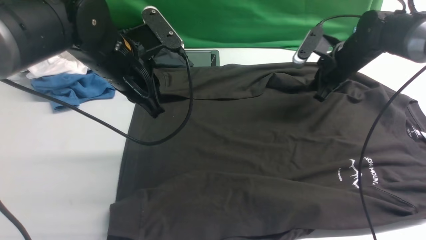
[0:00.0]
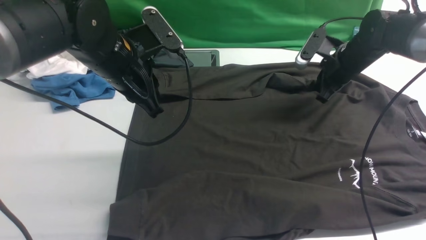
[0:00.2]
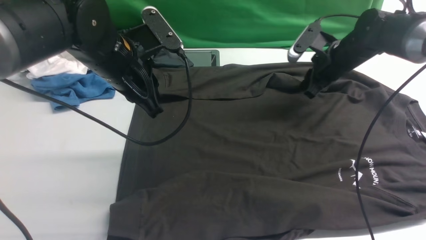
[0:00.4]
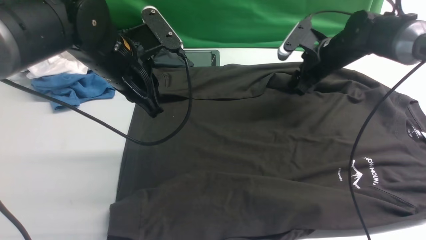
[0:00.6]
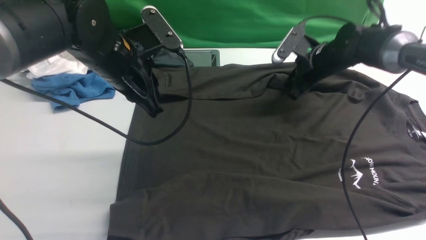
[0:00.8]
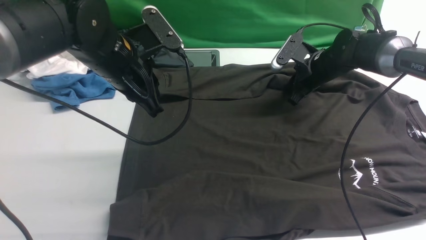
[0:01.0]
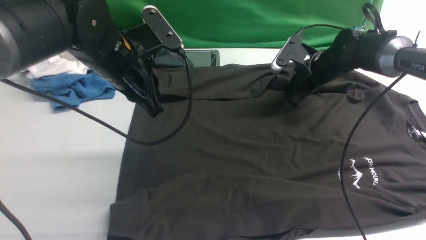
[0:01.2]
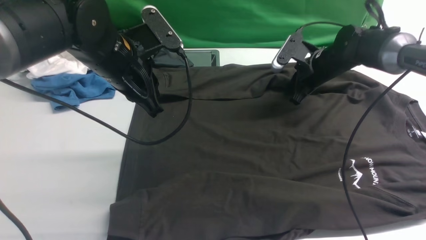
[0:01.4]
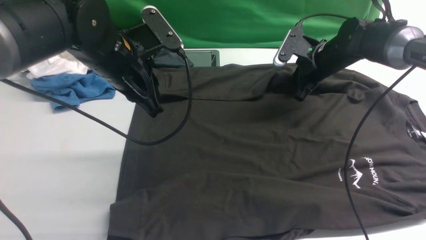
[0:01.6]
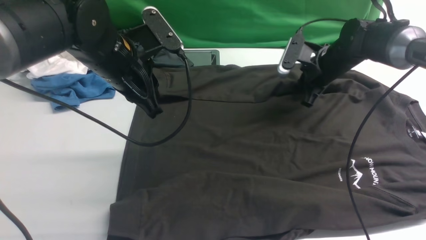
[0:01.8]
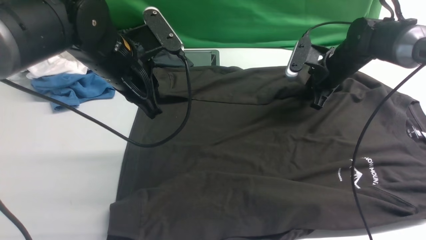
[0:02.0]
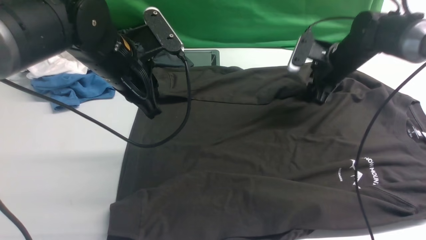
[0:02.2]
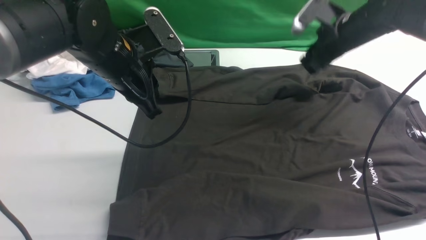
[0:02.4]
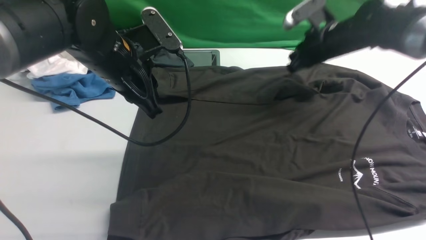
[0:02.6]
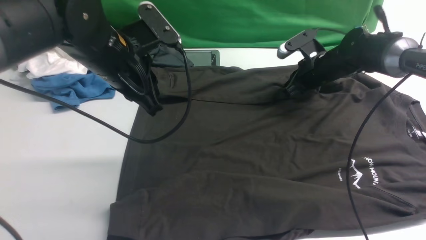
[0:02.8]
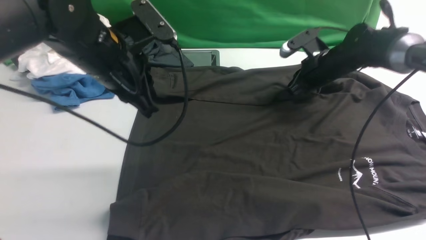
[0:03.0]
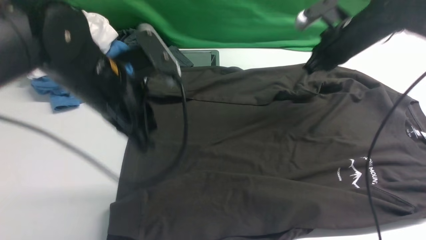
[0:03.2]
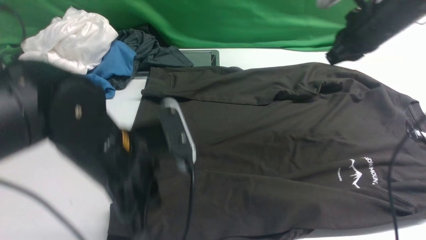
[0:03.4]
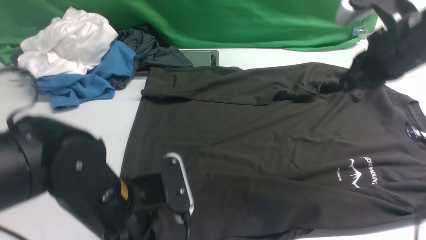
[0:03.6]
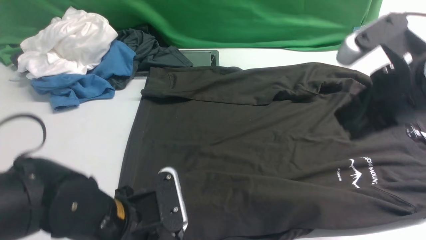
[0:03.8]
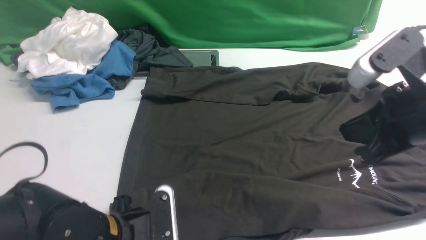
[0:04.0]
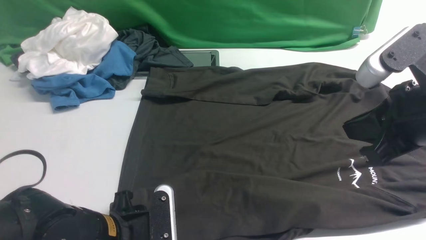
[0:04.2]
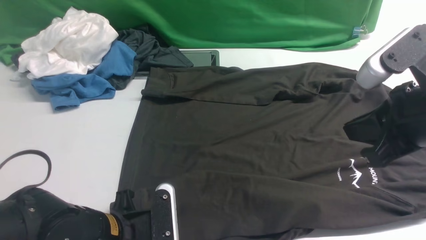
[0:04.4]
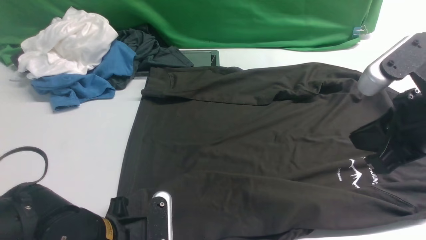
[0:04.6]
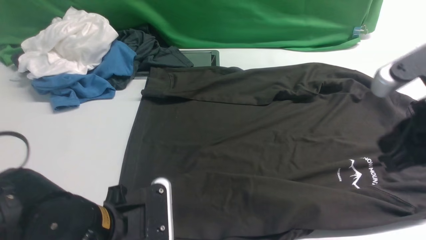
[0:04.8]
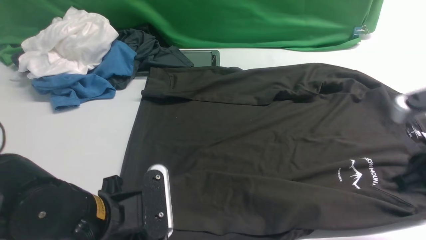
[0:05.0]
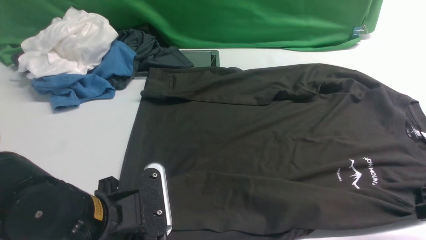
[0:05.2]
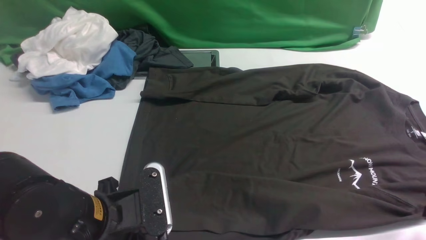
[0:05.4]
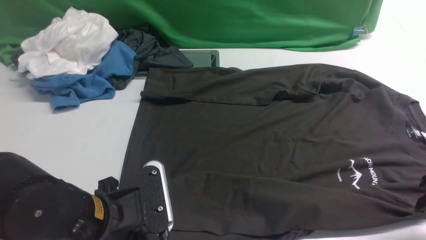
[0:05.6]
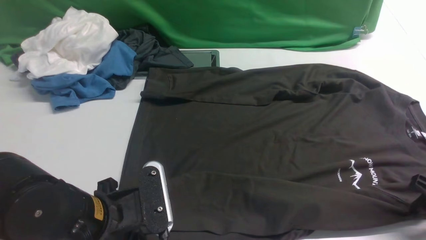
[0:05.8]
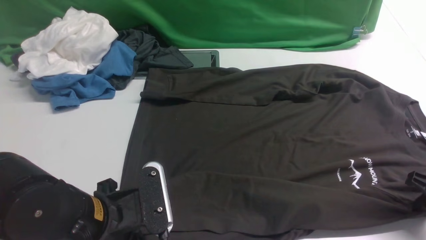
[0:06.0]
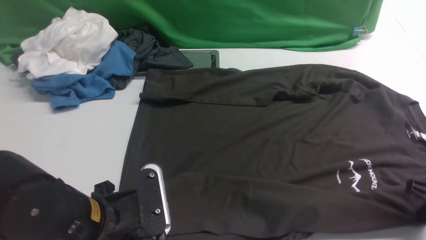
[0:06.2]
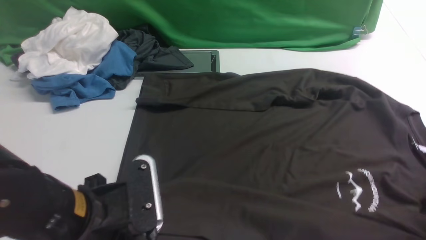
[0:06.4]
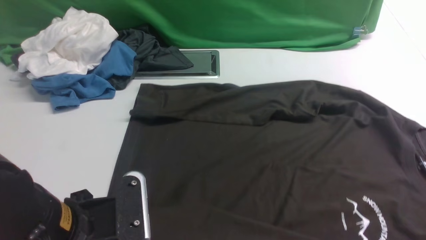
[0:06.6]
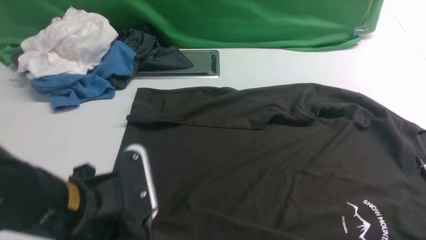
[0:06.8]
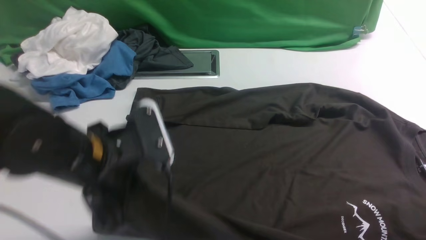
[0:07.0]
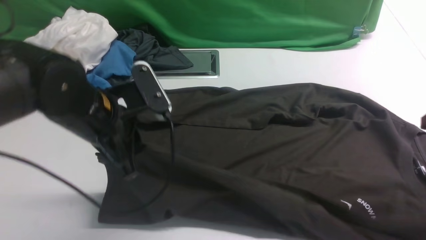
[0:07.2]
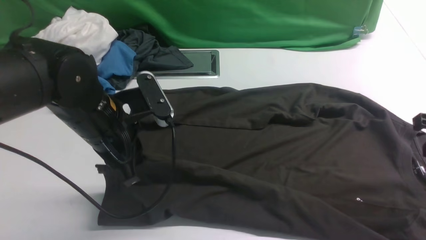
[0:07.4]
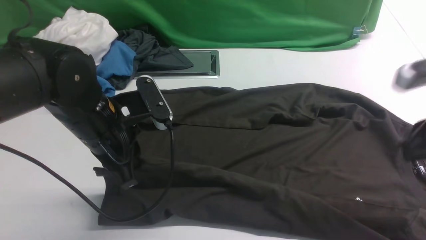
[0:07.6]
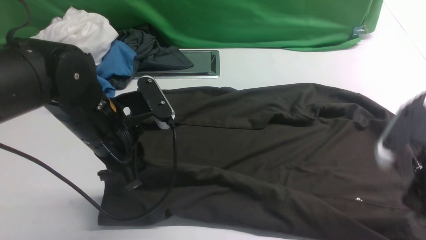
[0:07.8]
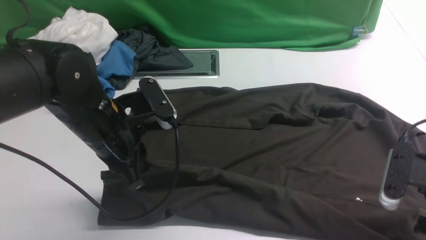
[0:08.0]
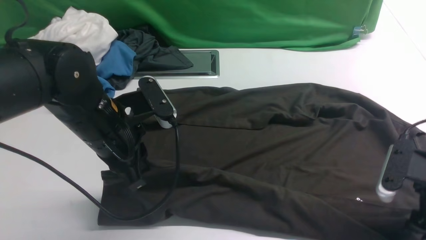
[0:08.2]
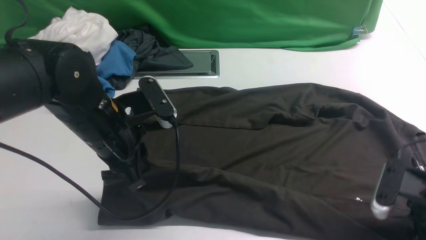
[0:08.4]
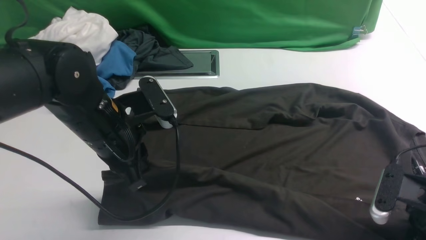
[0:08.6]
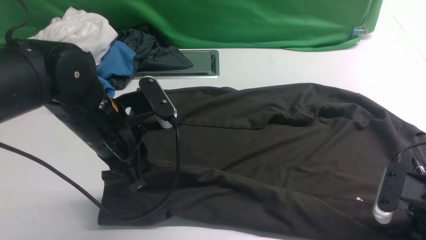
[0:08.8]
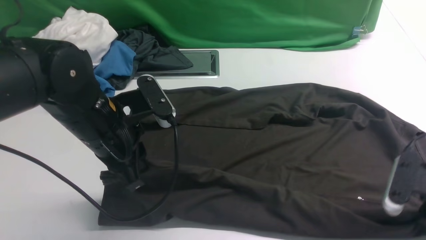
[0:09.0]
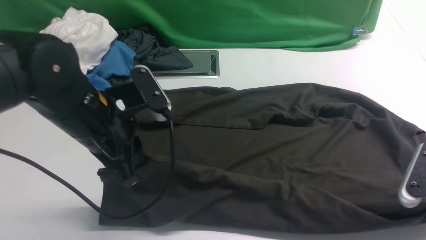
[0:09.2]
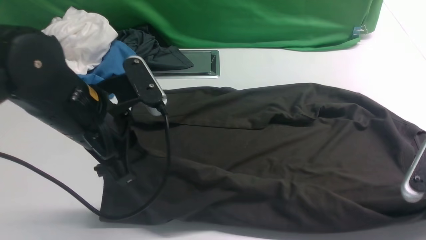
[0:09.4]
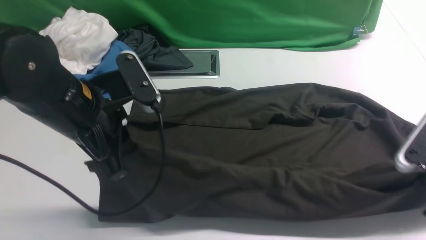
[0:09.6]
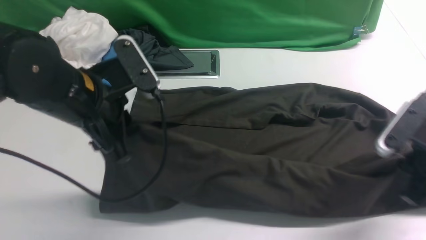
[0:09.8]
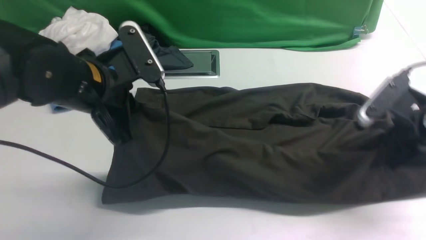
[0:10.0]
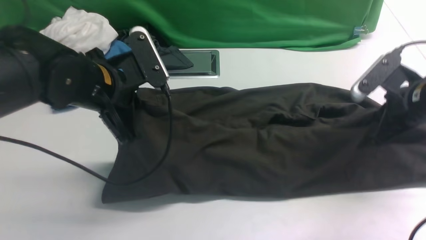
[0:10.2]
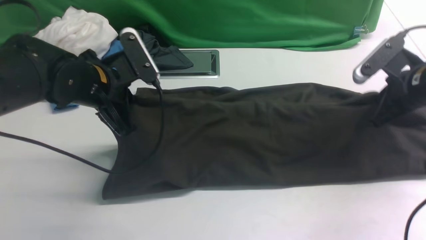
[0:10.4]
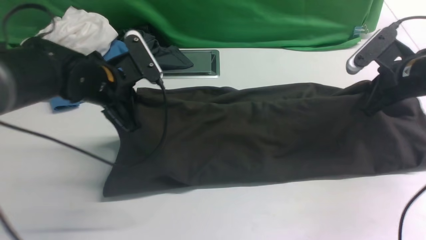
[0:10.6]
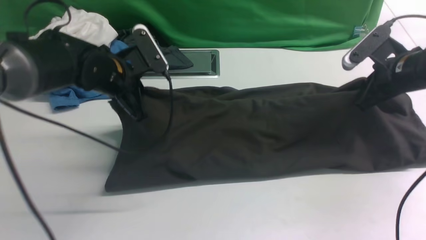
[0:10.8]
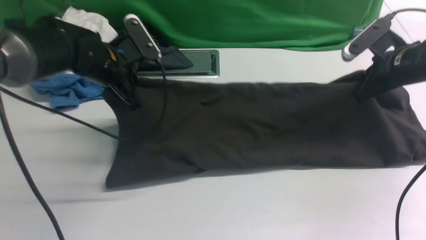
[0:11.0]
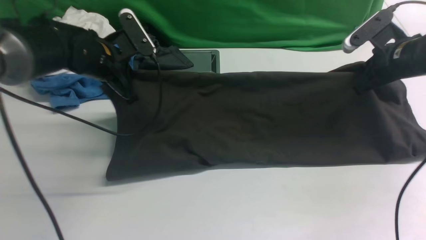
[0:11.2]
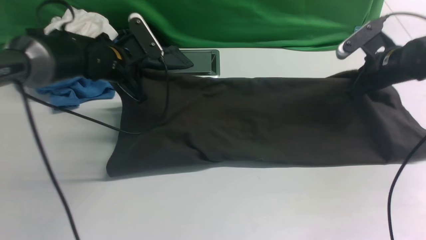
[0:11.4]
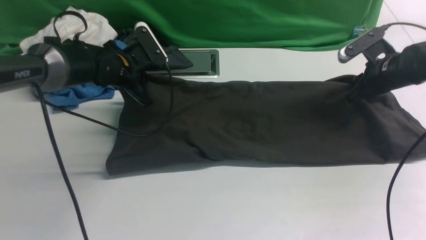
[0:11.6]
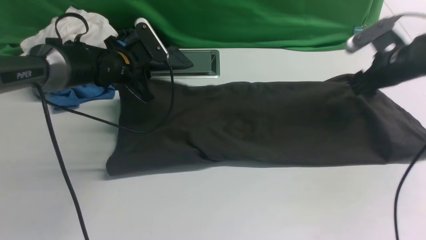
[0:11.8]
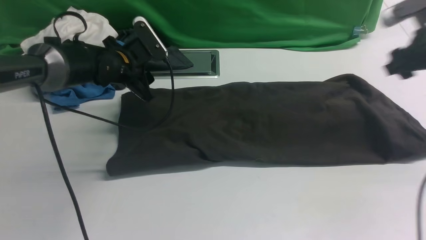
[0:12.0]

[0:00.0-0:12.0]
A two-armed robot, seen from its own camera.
Step, 0:00.0 to 0:09.2: use both arms simultaneously to clamp the lower edge of the clothing fabric.
0:00.0 to 0:01.6: The right gripper opens, then closes again.
0:01.6 to 0:03.0: The right gripper opens, then closes again.
0:03.0 to 0:04.4: The right gripper shifts roughly 30 cm backward and upward. The left gripper goes some 20 cm backward and downward, and opens up.
0:04.4 to 0:06.0: The left gripper heads upward, covering roughly 5 cm, and closes, while the right gripper is displaced downward and to the right by about 20 cm, and opens, then closes again.
0:06.0 to 0:07.6: The right gripper moves upward and to the left, approximately 15 cm; the left gripper heads forward, covering roughly 10 cm.
0:07.6 to 0:09.0: The right gripper shifts about 5 cm downward, and opens and closes again.
0:09.0 to 0:10.4: The left gripper is displaced forward by about 5 cm. Meanwhile the right gripper travels forward by about 15 cm.
0:10.4 to 0:12.0: The right gripper heads to the right, covering some 5 cm, and opens its fingers. Meanwhile the left gripper travels forward by roughly 10 cm, and opens its fingers.

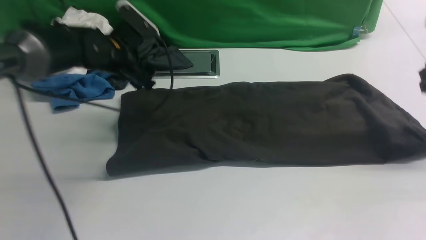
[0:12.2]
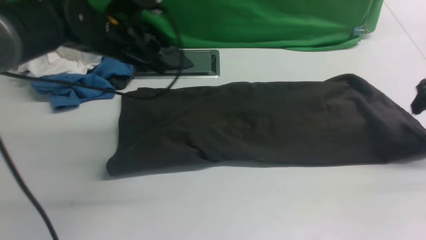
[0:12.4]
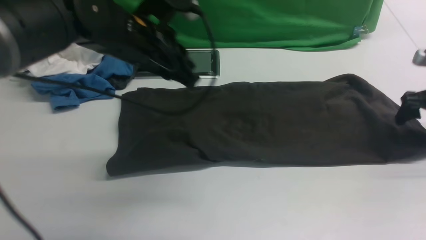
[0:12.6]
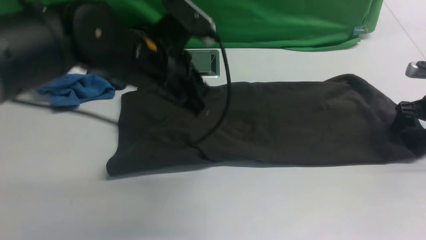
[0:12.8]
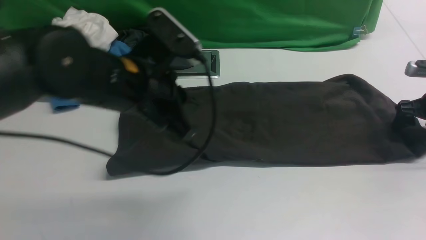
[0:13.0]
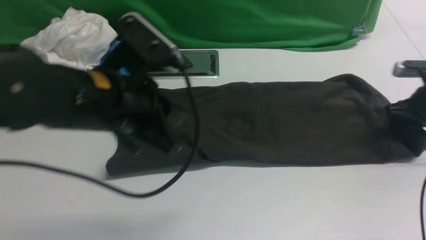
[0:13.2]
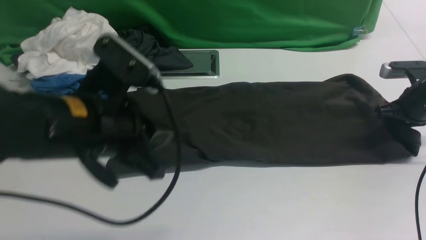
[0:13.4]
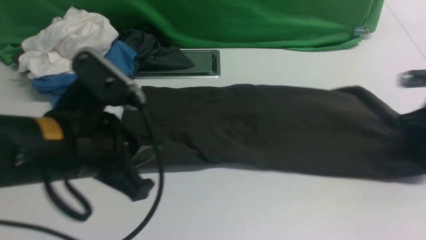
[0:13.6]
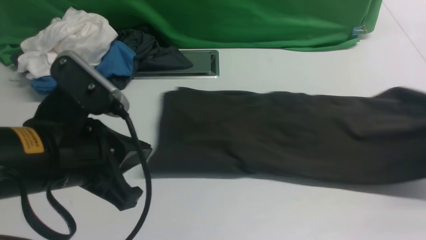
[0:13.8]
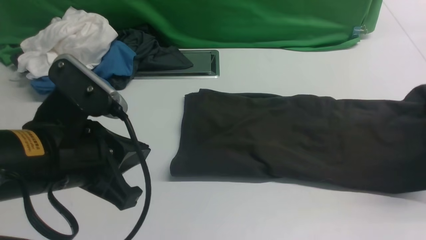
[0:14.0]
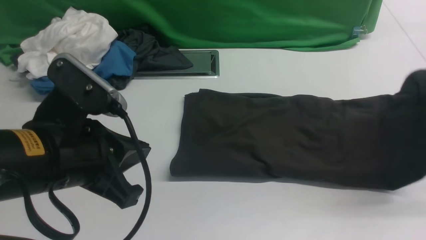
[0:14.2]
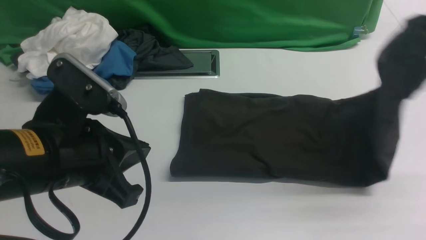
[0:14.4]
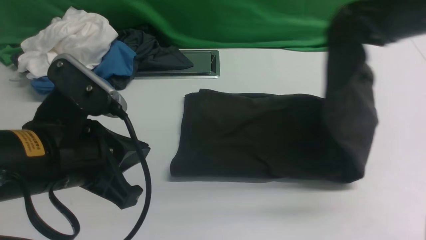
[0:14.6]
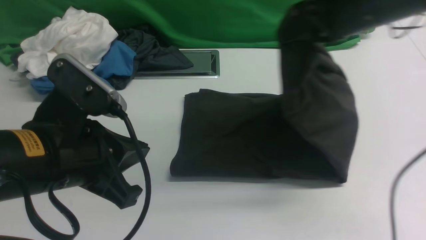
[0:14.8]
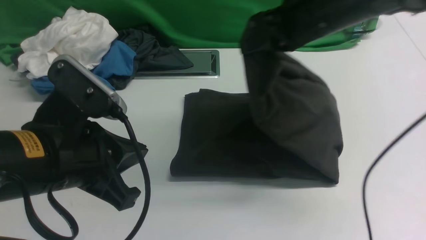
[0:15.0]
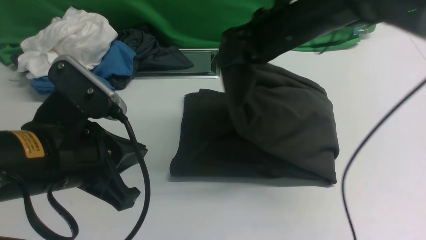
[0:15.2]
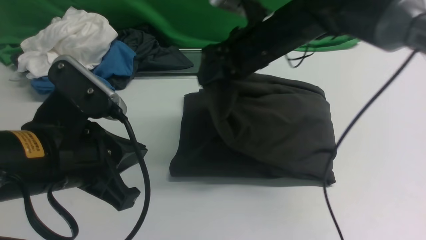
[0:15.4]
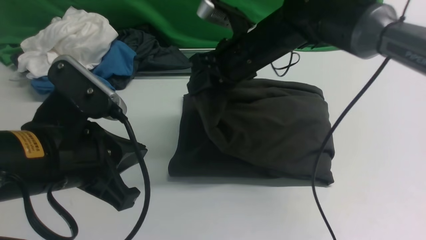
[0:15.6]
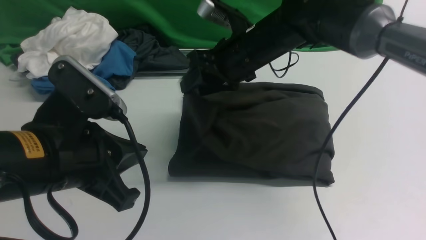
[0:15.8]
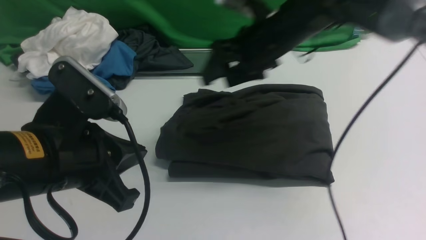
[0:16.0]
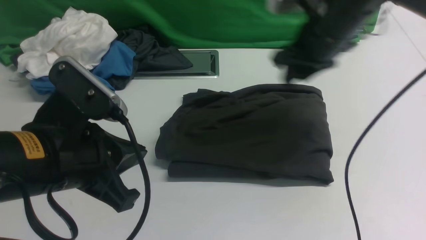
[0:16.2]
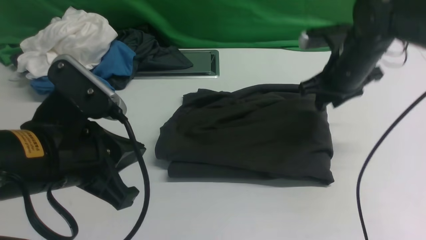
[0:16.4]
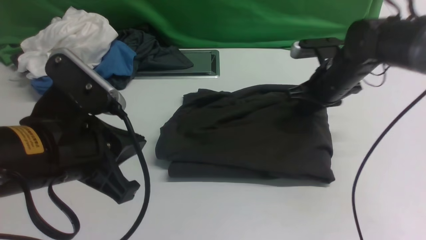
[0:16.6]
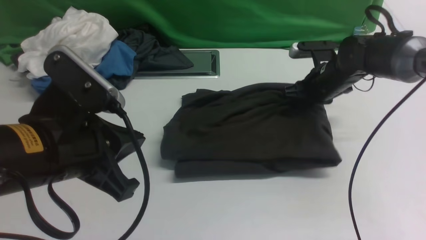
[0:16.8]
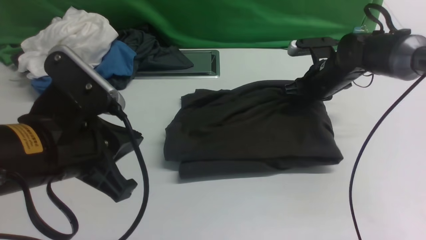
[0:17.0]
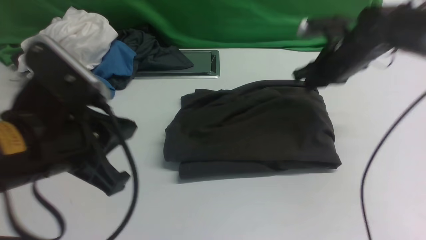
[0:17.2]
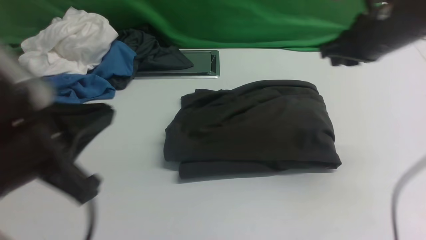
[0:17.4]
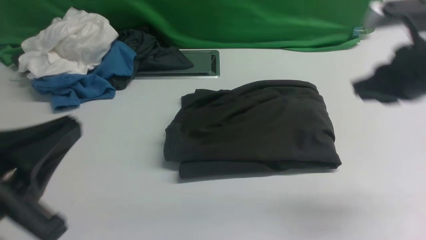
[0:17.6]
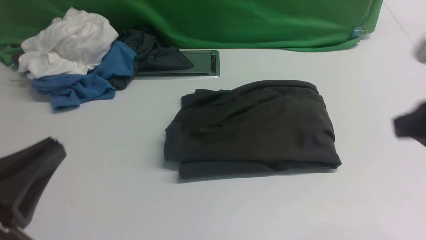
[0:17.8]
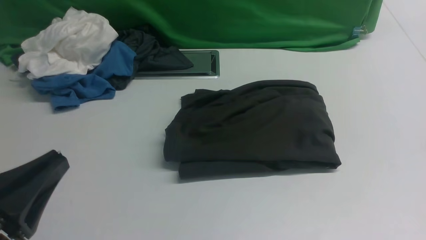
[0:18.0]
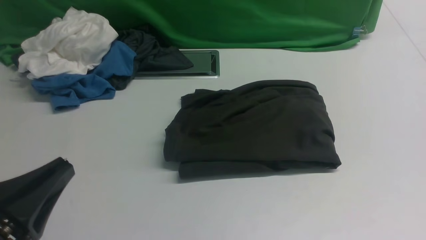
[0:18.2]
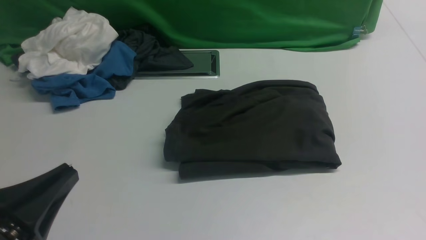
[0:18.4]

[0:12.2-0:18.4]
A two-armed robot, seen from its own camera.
Step, 0:12.4 to 0:13.6: use the right arm to clamp the right edge of the fabric.
Step, 0:13.8 to 0:15.8: use the right arm to drag the right edge of the fabric to the left and folds it over the left edge.
0:12.2 to 0:13.8: The right gripper moves approximately 10 cm downward and comes back, and closes its fingers. Meanwhile the left gripper goes approximately 25 cm backward, and closes up.
0:13.8 to 0:15.4: The right gripper moves to the left, approximately 35 cm.
0:15.4 to 0:16.8: The right gripper travels to the right and downward by approximately 20 cm.
0:16.8 to 0:18.4: The right gripper is displaced backward by about 35 cm, and closes. The left gripper moves backward and to the left, some 10 cm.
